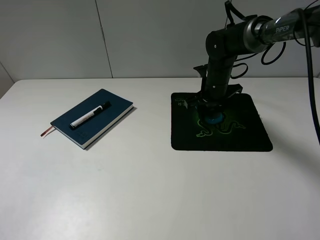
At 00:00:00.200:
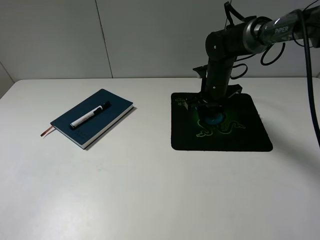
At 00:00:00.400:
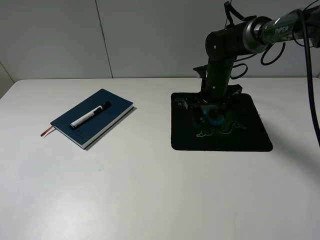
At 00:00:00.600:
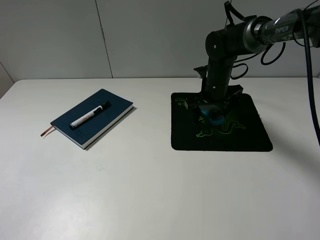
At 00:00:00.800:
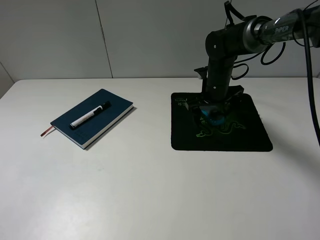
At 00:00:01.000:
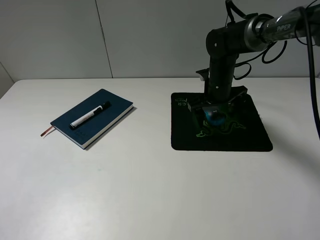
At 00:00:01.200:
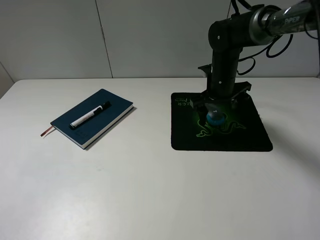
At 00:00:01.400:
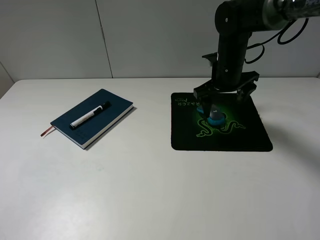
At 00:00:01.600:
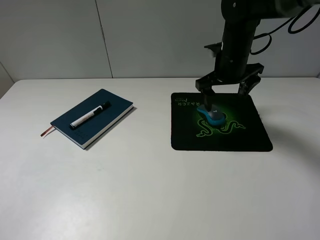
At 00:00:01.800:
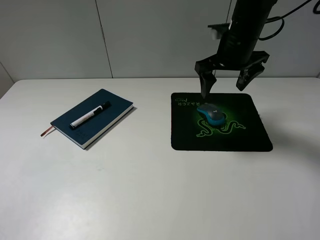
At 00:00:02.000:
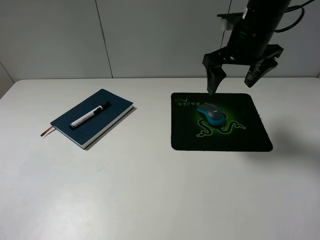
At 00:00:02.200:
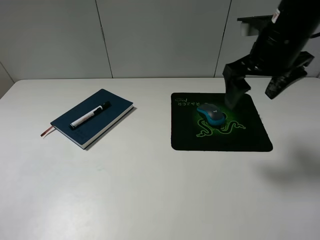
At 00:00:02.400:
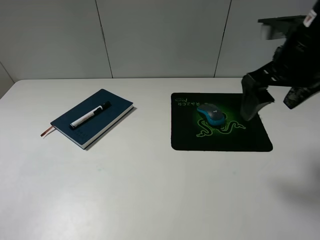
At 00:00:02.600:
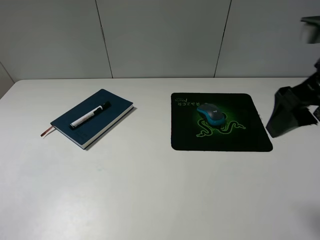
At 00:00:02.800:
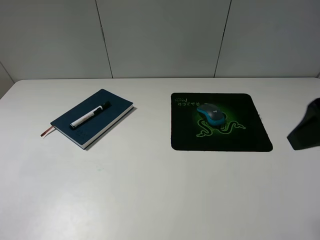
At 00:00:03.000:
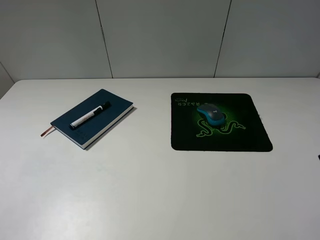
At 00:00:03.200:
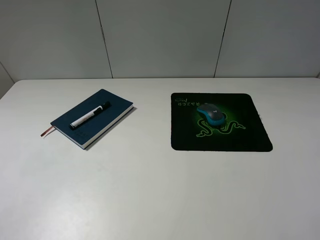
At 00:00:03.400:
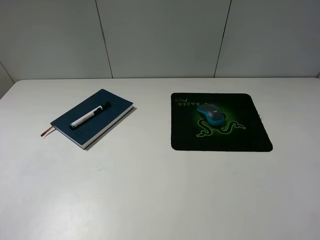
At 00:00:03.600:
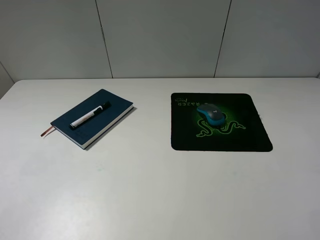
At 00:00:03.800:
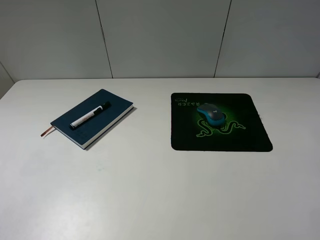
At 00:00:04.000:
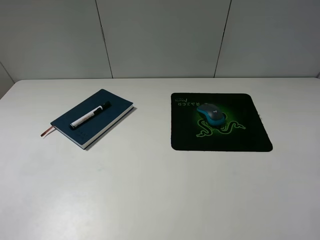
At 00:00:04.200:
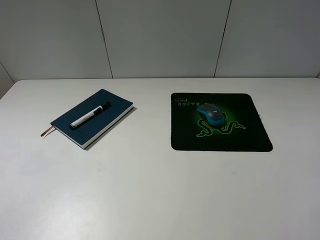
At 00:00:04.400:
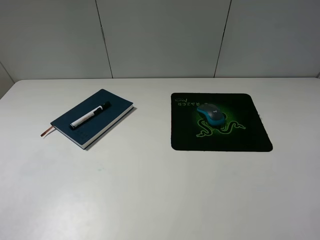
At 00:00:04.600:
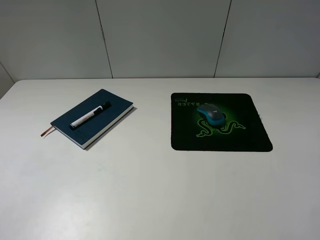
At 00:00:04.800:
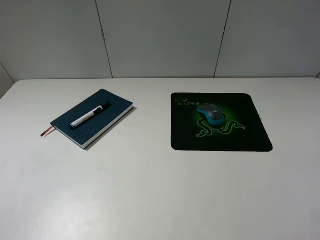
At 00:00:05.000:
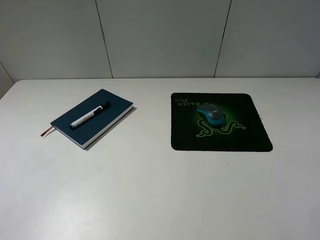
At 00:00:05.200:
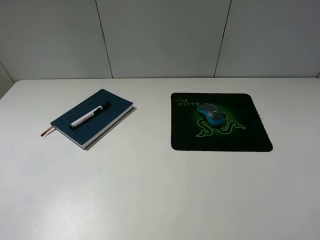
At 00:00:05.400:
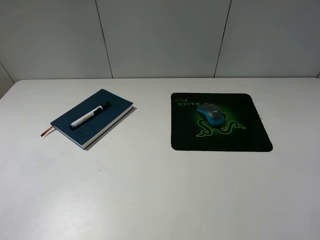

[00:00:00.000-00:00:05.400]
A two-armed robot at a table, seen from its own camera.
00:00:00.000 to 00:00:01.400: The right gripper is displaced upward by roughly 5 cm, and opens its fingers.
00:00:01.400 to 00:00:02.800: The right gripper heads backward and upward, covering some 30 cm.
00:00:02.800 to 00:00:04.000: The right gripper is displaced backward by approximately 15 cm.
00:00:04.000 to 00:00:05.400: Both grippers stay put.
